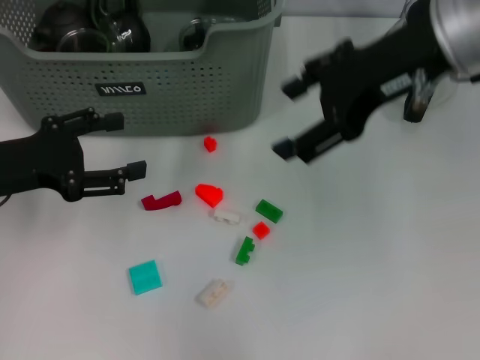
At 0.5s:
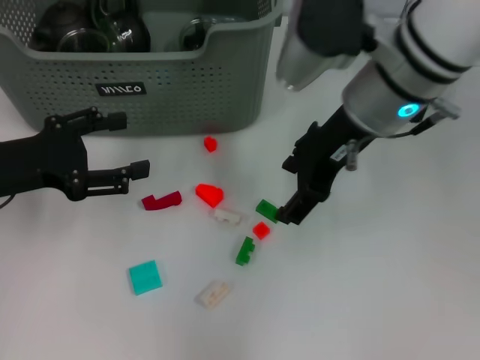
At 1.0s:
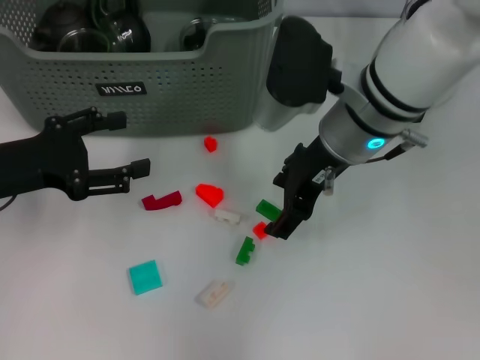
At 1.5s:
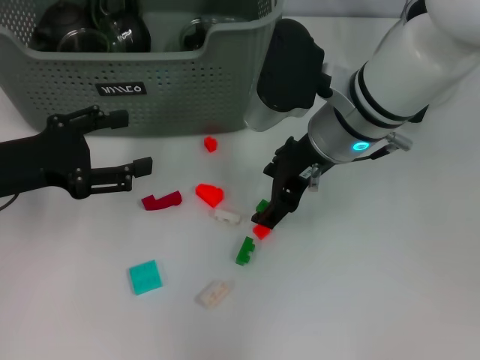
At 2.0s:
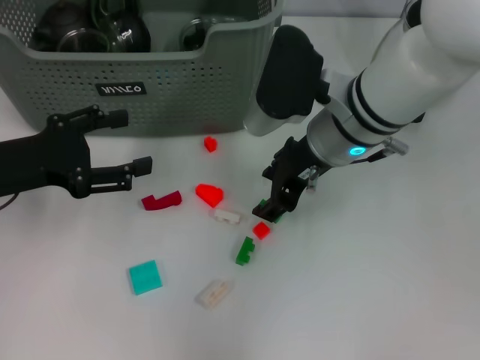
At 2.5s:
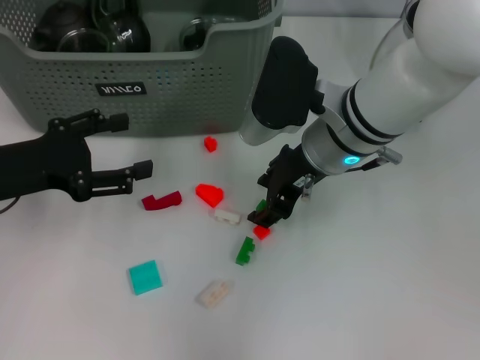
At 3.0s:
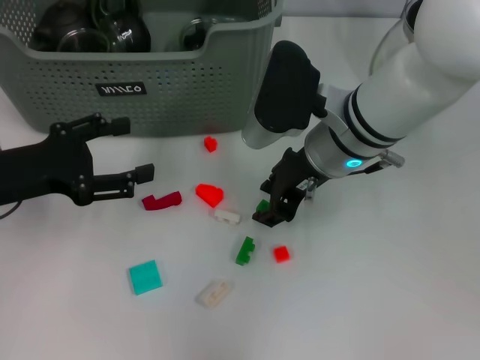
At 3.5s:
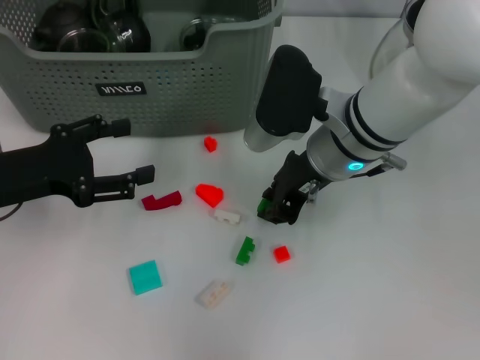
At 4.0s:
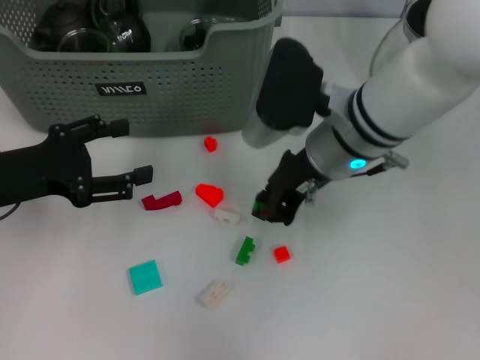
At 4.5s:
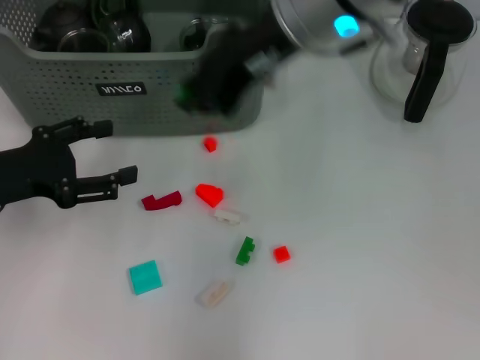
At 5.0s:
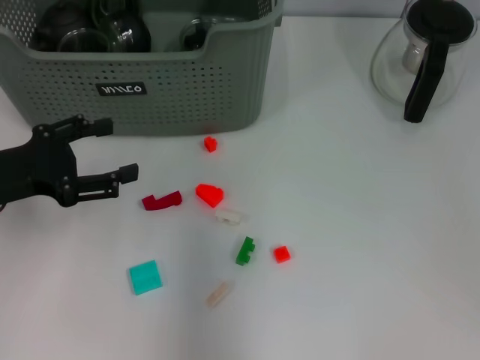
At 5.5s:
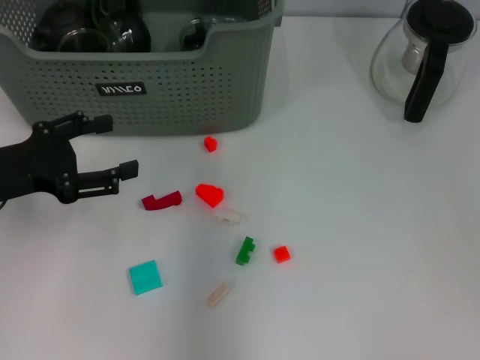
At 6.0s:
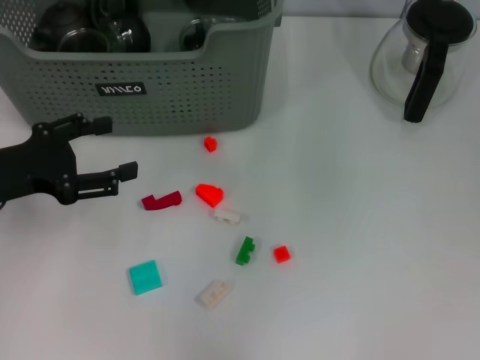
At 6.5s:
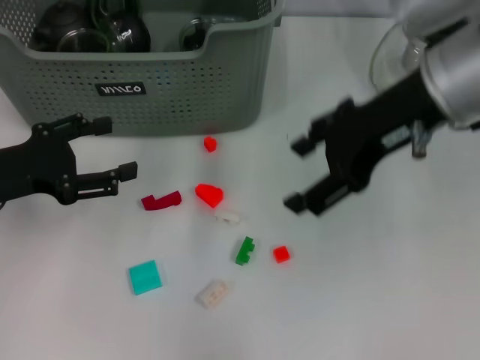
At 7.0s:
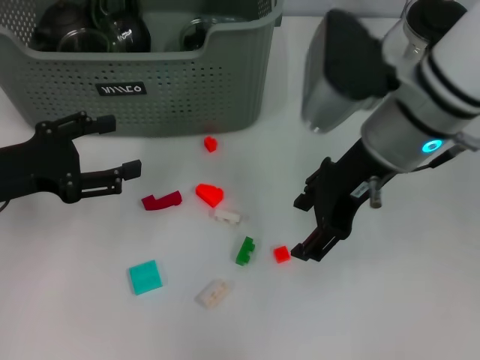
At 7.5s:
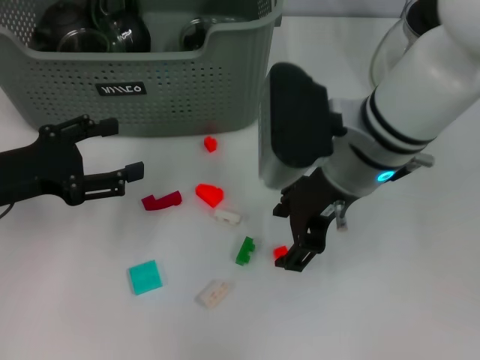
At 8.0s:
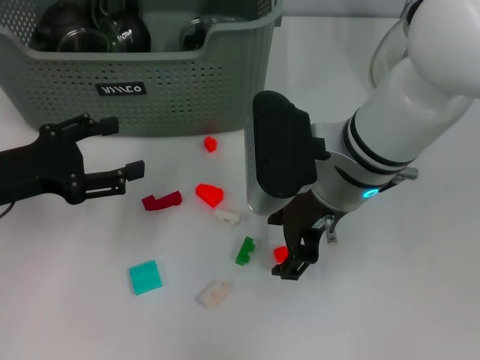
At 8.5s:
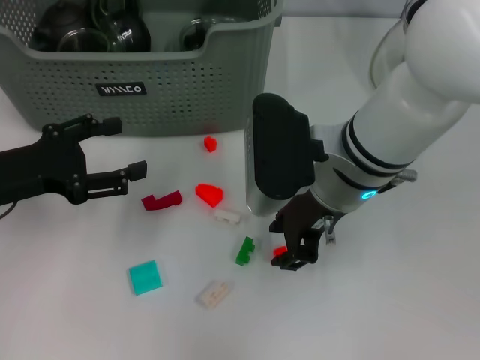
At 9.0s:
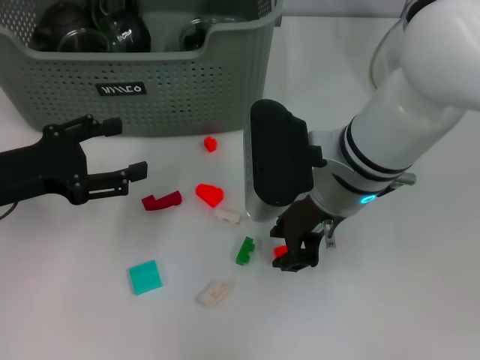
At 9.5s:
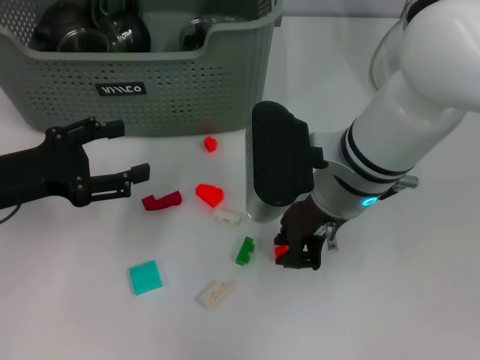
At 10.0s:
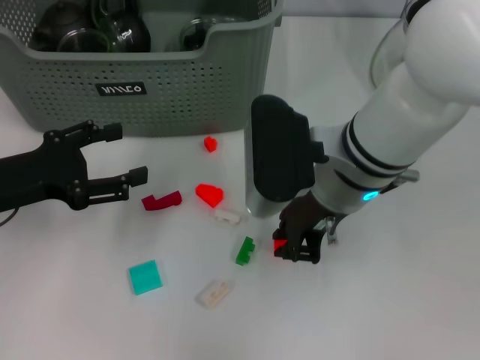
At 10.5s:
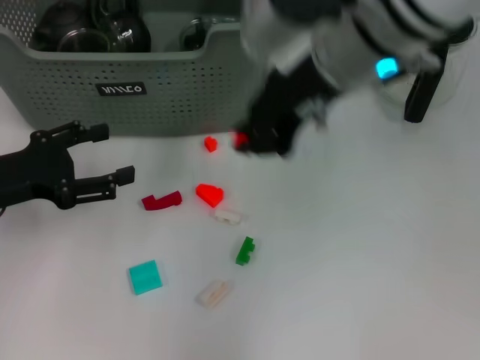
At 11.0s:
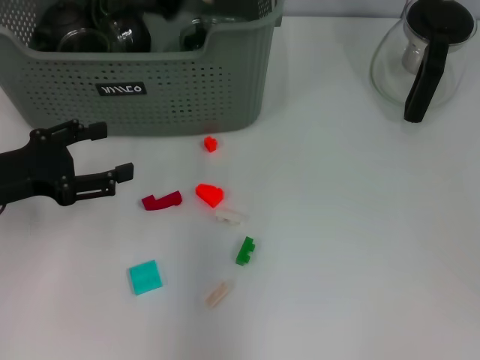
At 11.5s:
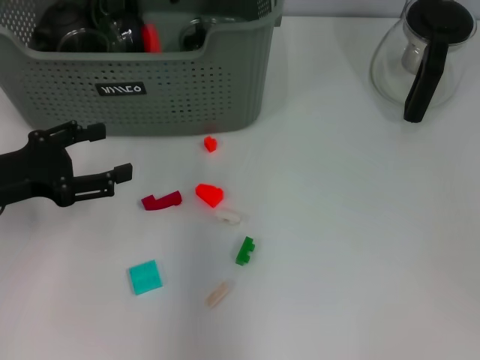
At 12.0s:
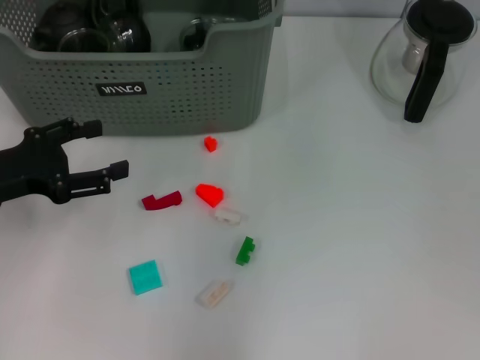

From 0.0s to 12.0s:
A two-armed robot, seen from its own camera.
Task of the whole recording: pick up the teacup on the table and place it into the storage bin, pick up the block on the table and place it into the storage bin.
Step, from 0.0s to 3.5s: Grasp the green block with right gripper.
Step, from 4.0s to 5.5s: Place the green block in the storage box with right gripper.
From 0.0s to 2.0s: The right gripper heads downward and to the left, covering about 15 cm.
From 2.0s to 4.0s: The right gripper closes its fingers.
From 4.0s to 6.0s: The right gripper goes about 15 cm upward, and opens up.
From 6.0s to 8.0s: The right gripper heads downward and backward, covering some 20 cm.
From 8.0s to 10.0s: The right gripper closes up.
From 10.0s to 12.0s: The right gripper heads upward and forward, covering about 15 cm, and opens up.

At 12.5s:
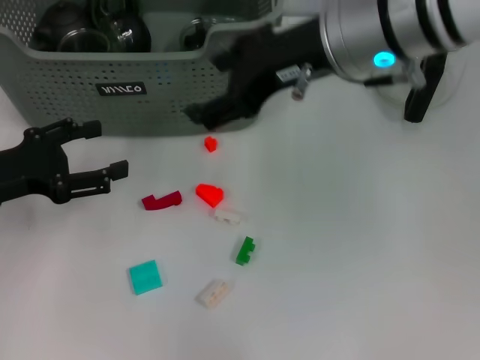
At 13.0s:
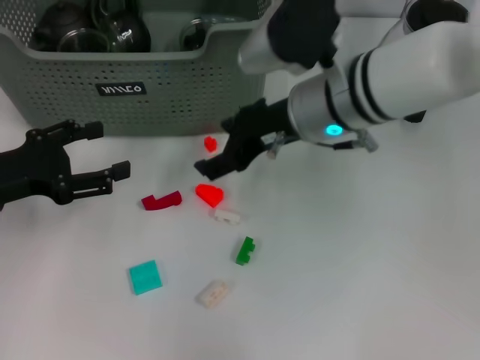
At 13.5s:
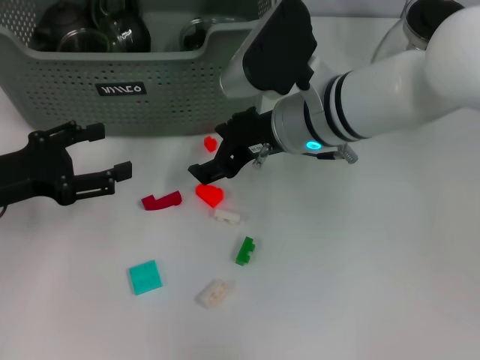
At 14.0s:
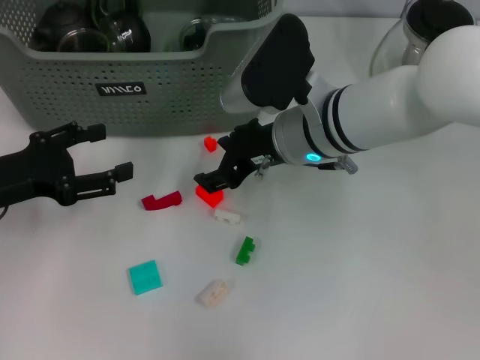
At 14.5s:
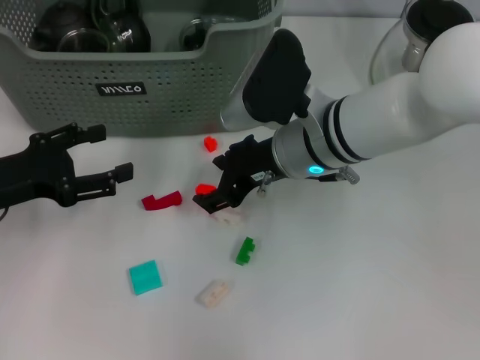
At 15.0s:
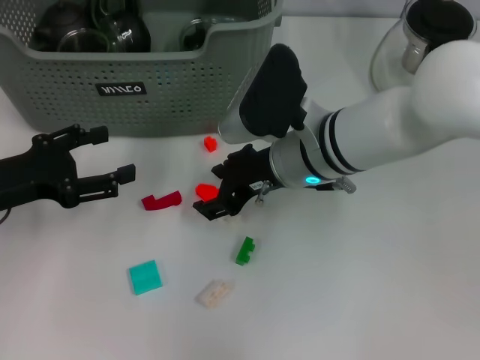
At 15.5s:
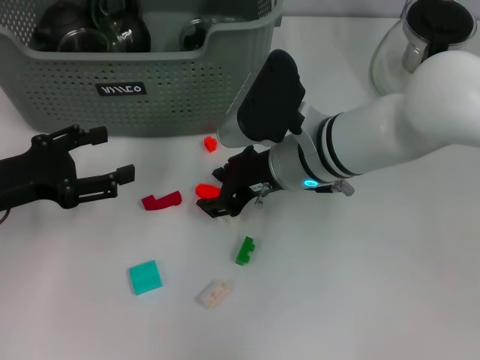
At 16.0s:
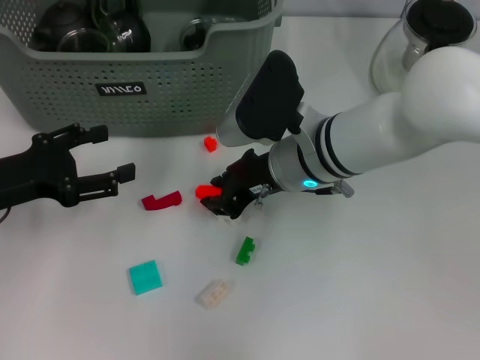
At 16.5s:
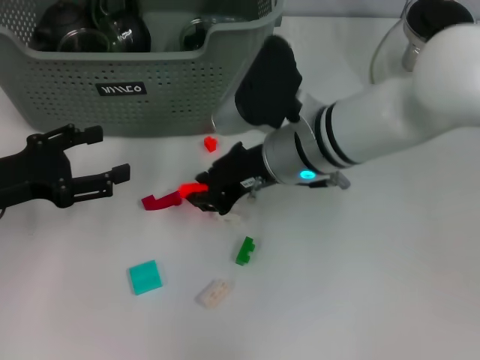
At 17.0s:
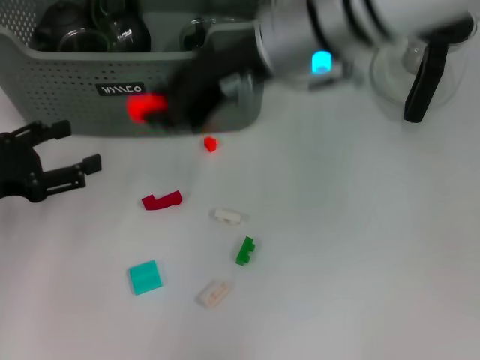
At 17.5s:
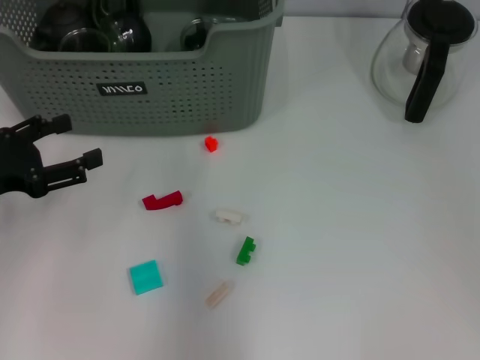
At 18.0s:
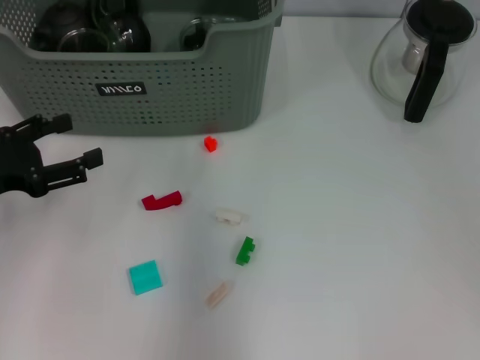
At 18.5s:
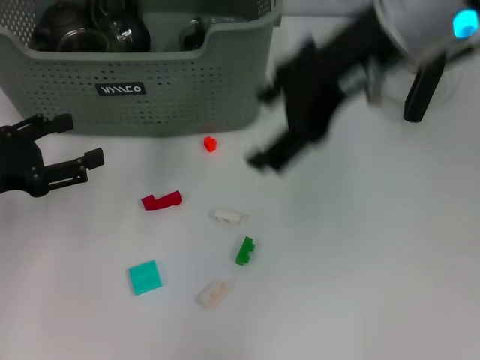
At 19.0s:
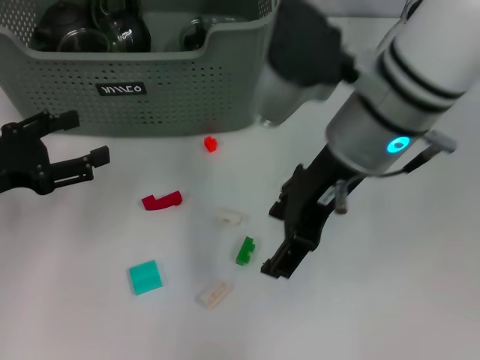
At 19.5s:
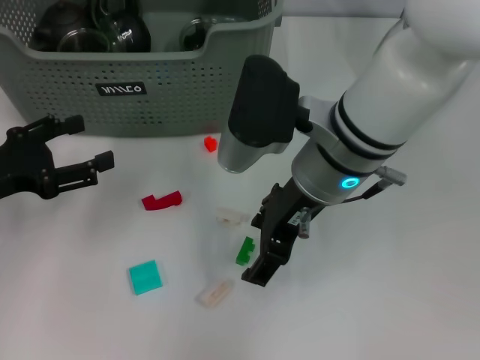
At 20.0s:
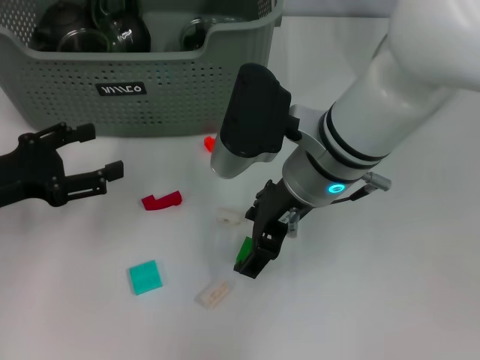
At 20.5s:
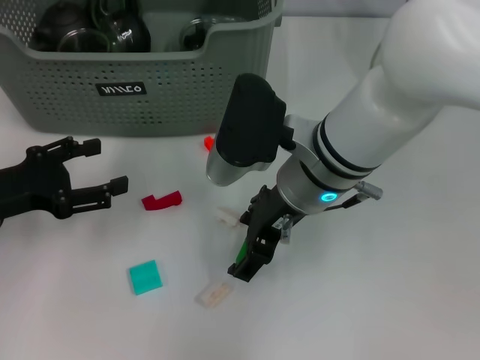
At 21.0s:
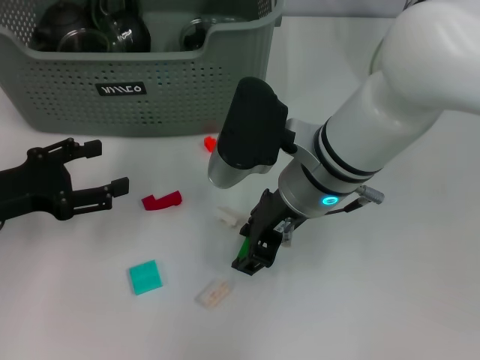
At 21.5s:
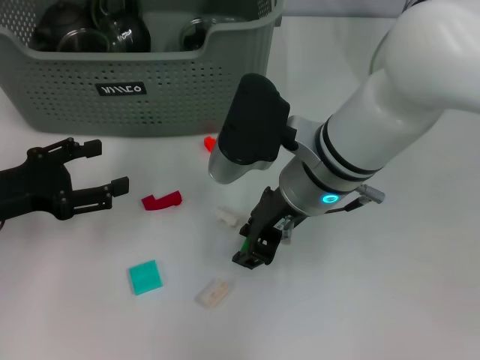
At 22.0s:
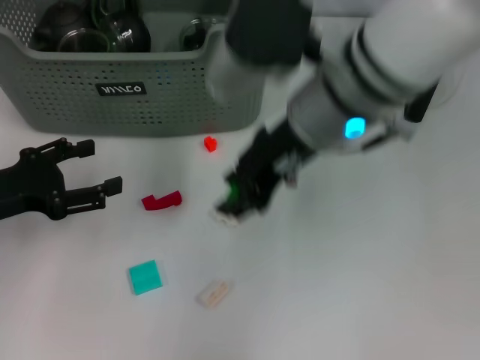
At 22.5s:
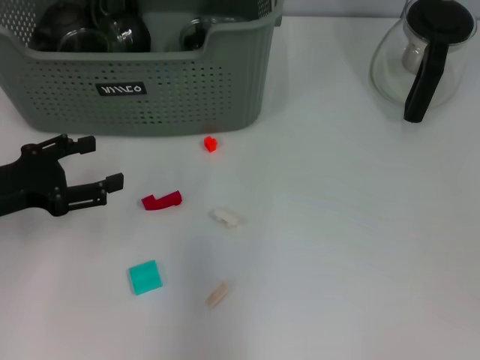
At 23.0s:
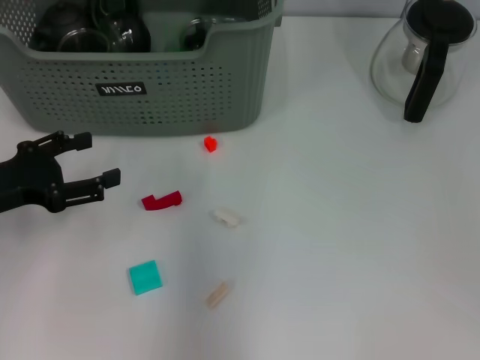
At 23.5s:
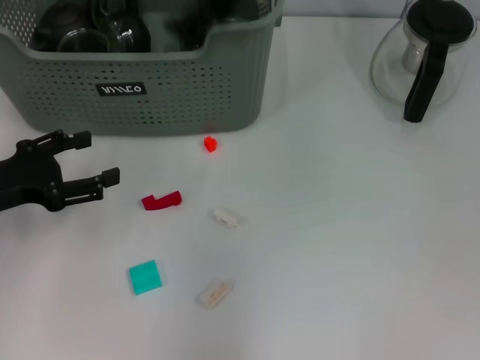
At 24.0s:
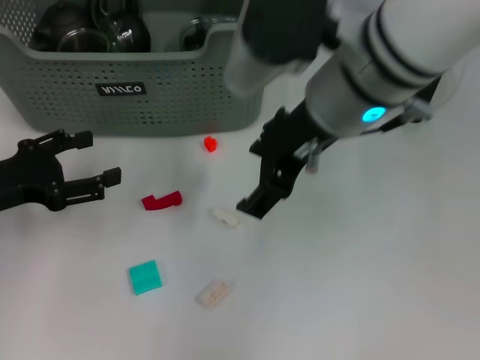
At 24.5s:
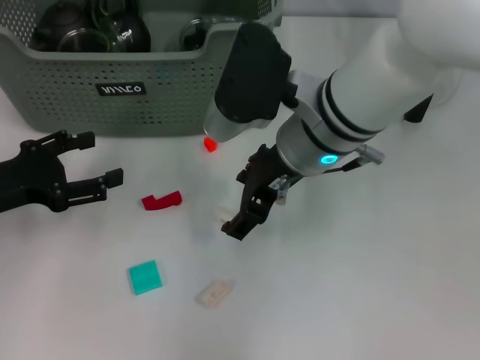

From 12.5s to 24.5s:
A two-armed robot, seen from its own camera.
Task of the whole recording: pick up the teacup on the table and place it into the storage bin, pick up the block on the table and place it into the storage bin.
Step, from 18.5s to 21.5s: Grasp the green block with right gripper.
Step, from 22.0s to 23.0s: Place the green block in the storage box with right gripper.
From 12.5s to 14.5s: The right gripper goes some 15 cm downward.
From 14.5s to 16.5s: The right gripper closes up.
From 16.5s to 18.5s: The right gripper heads upward, covering roughly 20 cm, and opens its fingers.
From 18.5s to 20.5s: The right gripper is displaced downward by about 15 cm.
From 20.5s to 22.5s: The right gripper is displaced upward by about 20 cm, and closes up.
From 22.5s to 24.5s: The right gripper moves downward, approximately 15 cm, and opens its fingers.

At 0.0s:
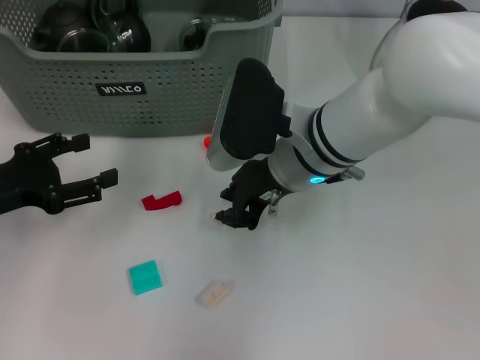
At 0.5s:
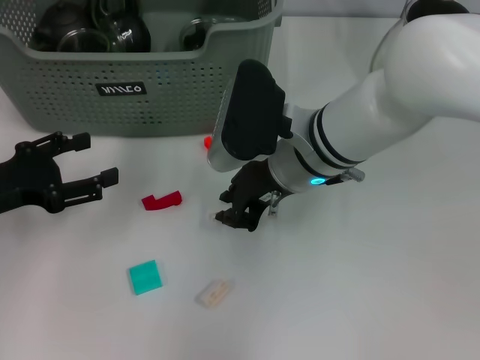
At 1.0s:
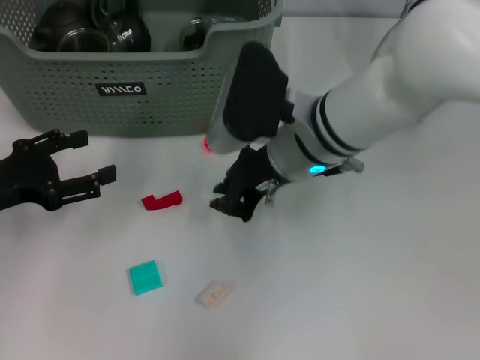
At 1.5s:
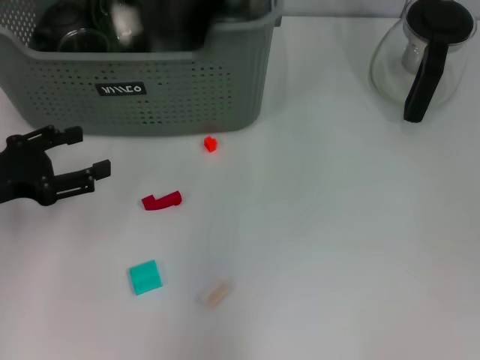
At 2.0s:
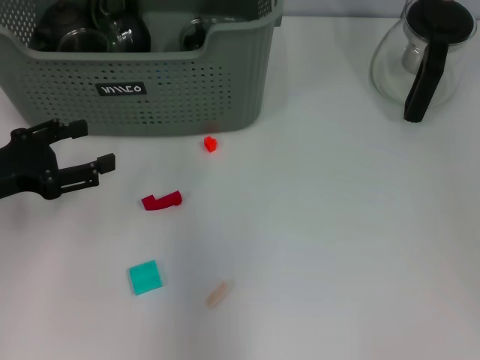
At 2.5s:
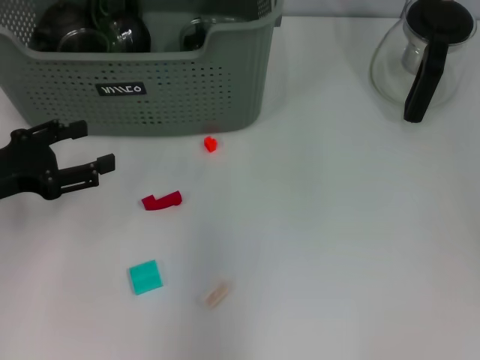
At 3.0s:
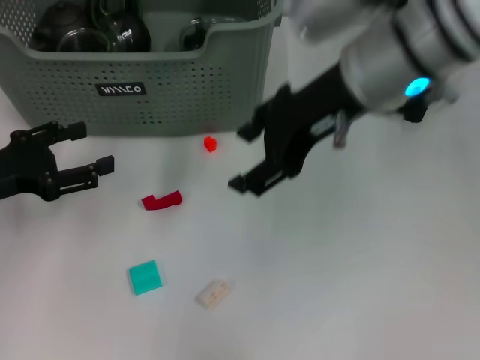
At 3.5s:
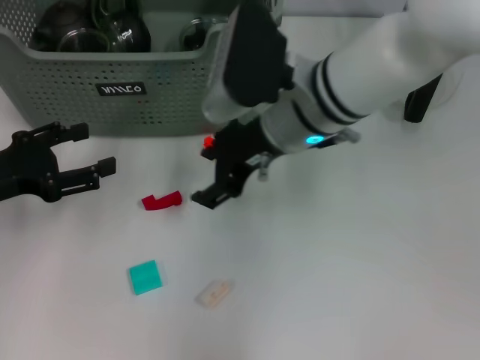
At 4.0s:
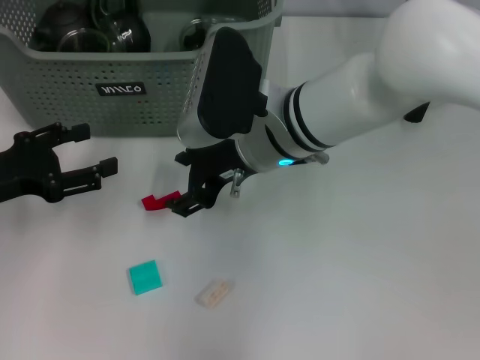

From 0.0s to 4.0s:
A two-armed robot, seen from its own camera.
Task of the whole recording: pick up the teacup on the table and place it into the storage bin, pick up the block on the table and place it into the storage bin.
Step, from 1.0s to 2.0s: Place the white block in the storage box with right gripper.
From 0.0s to 2.0s: The right gripper travels upward by roughly 25 cm.
From 2.0s to 4.0s: The right gripper shifts about 25 cm downward, and opens its fingers.
